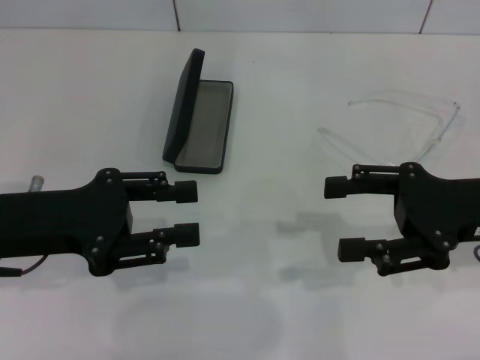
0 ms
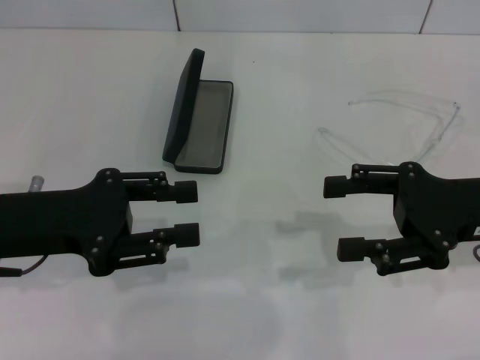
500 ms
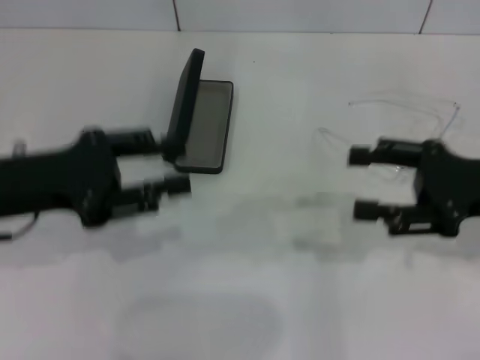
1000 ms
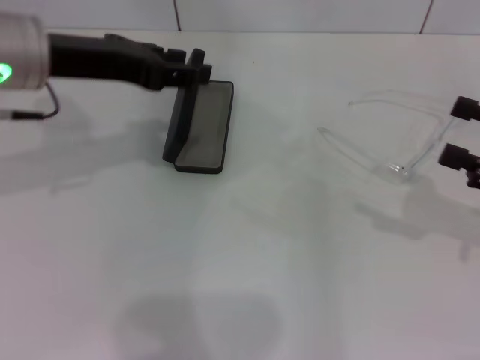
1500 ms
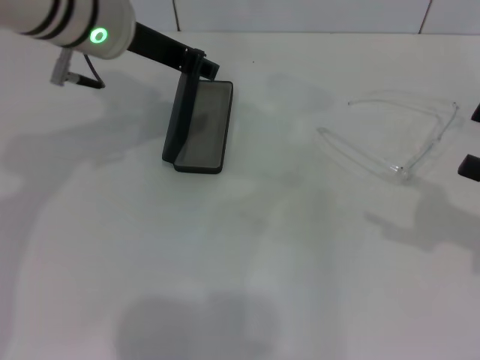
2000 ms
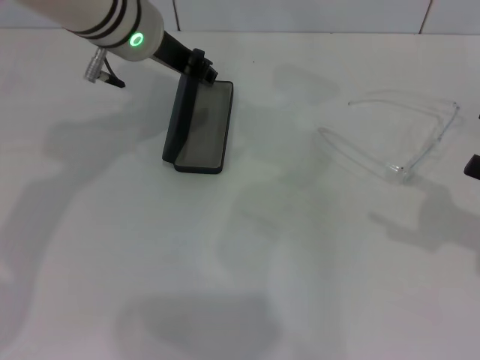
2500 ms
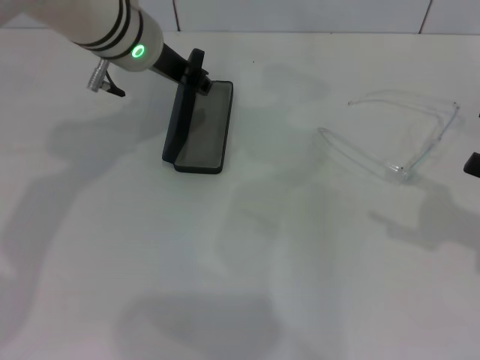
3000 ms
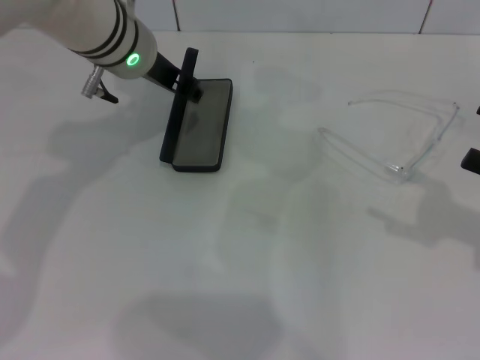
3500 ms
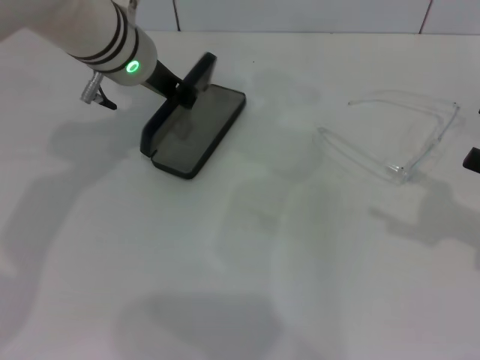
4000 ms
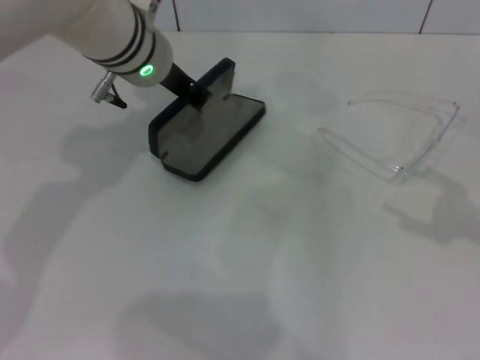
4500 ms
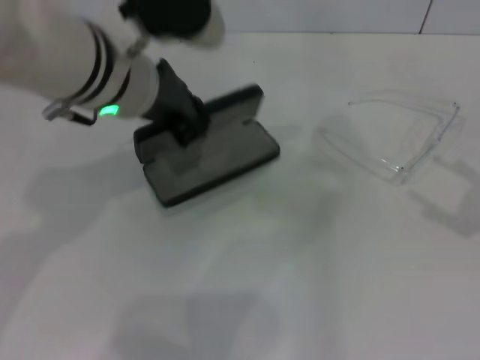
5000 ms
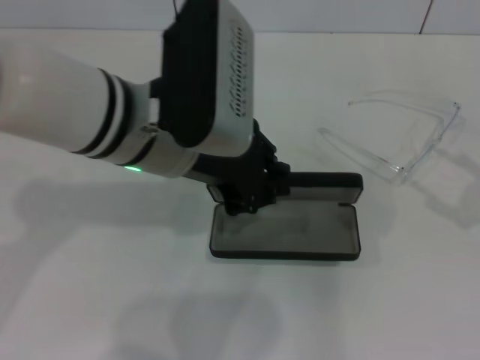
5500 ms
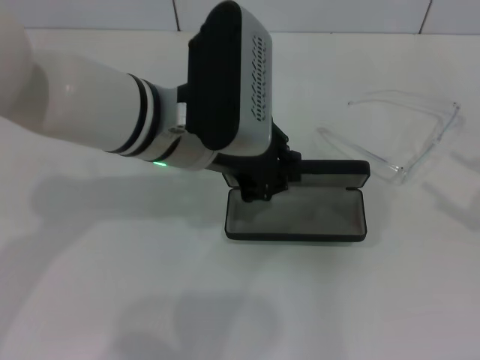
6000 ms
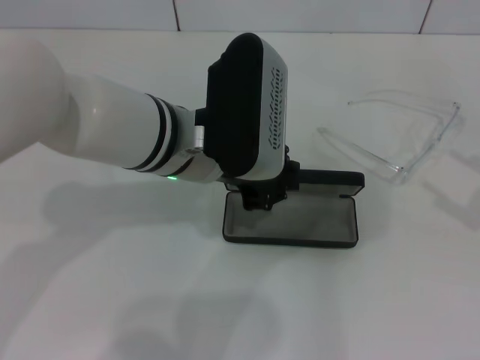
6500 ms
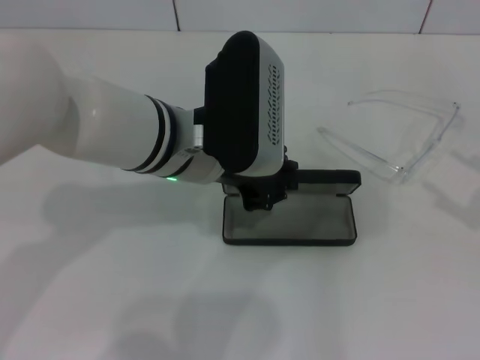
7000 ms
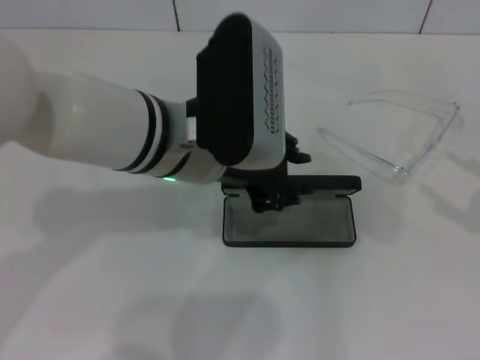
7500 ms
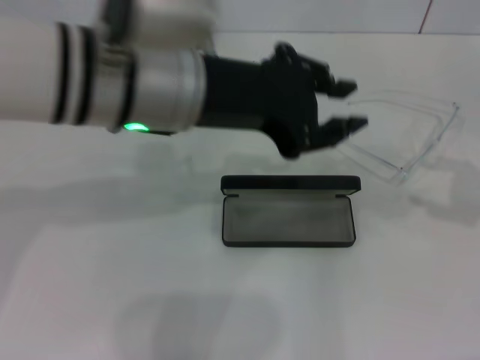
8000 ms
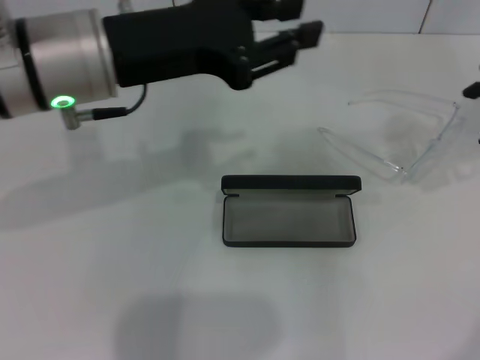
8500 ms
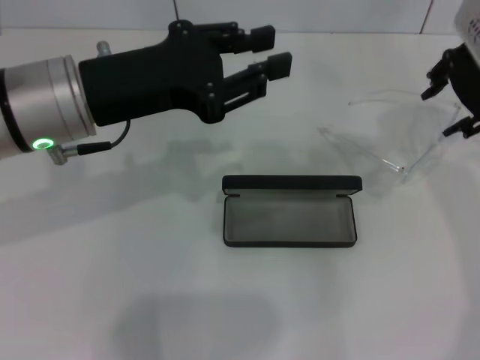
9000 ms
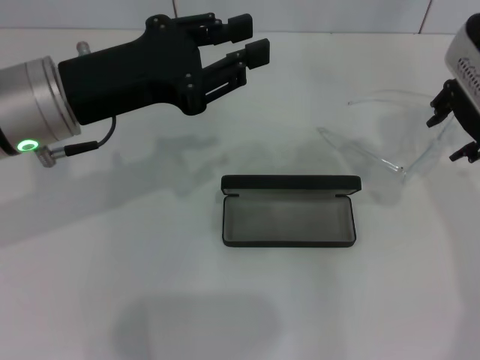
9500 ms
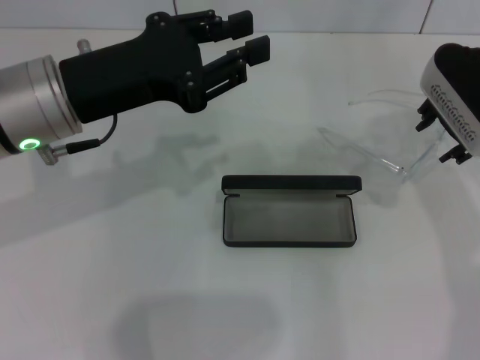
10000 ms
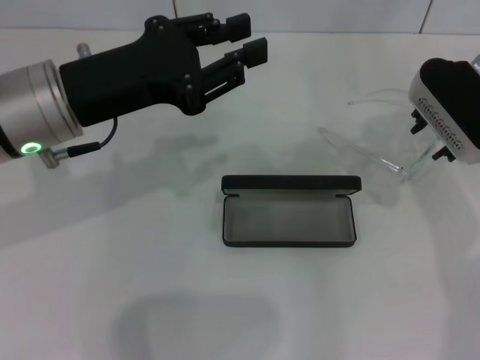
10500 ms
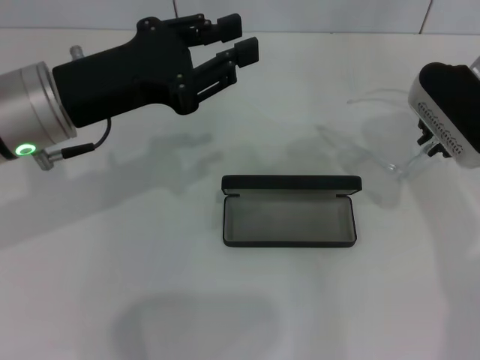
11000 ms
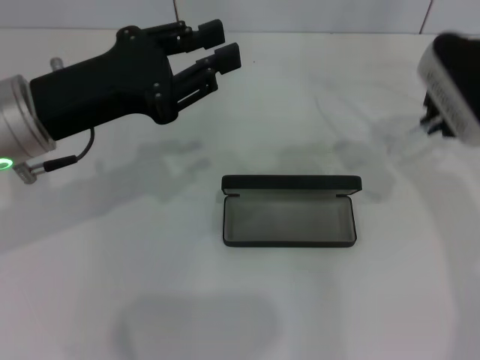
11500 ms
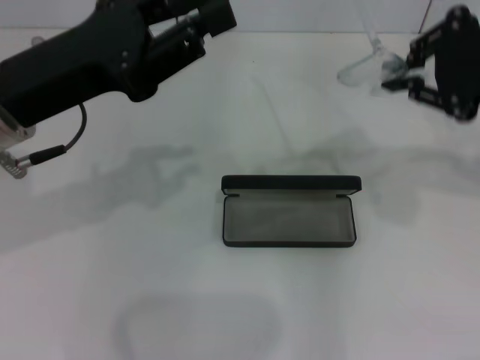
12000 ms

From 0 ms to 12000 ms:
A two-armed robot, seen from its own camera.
Step, from 0 ms to 4000 ms: Grab the glasses case with your left hand.
Step, from 4500 ms to 7000 ms: Place the glasses case in the center of the table with your left hand.
Step, from 7500 ms to 11000 ms: Grab the eyeglass frame with your right hand.
From 0 ms to 2000 ms: The left gripper goes approximately 20 cm forward, to the right and upward. Meanwhile the right gripper shifts about 10 cm to the right.
From 2000 ms to 4000 ms: The left gripper travels downward by some 5 cm.
From 4000 ms to 6000 ms: The left gripper travels backward by approximately 10 cm.
From 6000 ms to 8000 ms: The right gripper heads forward and upward, covering roughly 10 cm. Meanwhile the left gripper heads upward, covering roughly 5 cm.
From 8000 ms to 10000 ms: The left gripper heads to the left and downward, covering approximately 10 cm; the right gripper shifts some 20 cm to the left and forward.
From 10000 ms to 12000 ms: The right gripper moves backward and upward, approximately 10 cm, and closes its fingers.

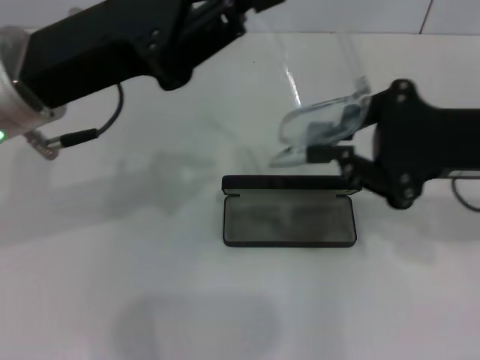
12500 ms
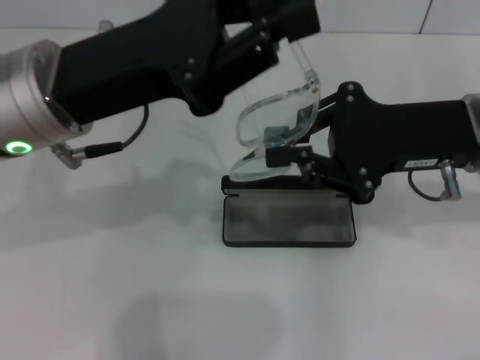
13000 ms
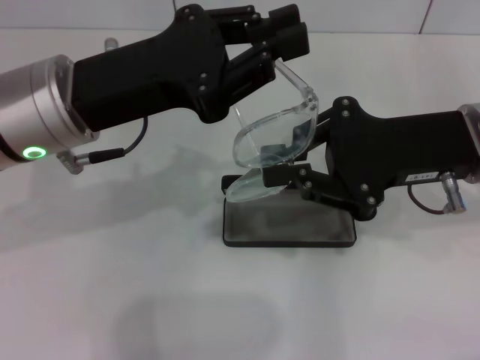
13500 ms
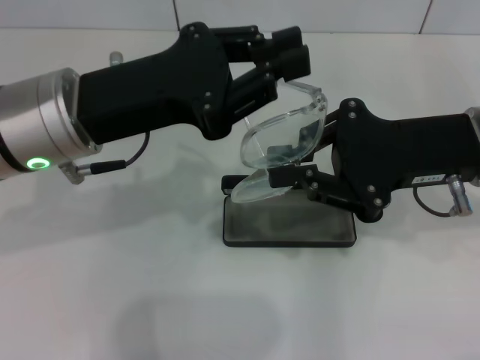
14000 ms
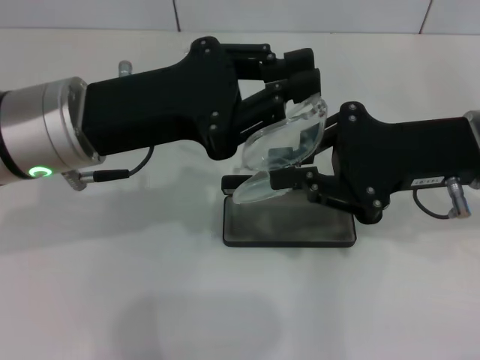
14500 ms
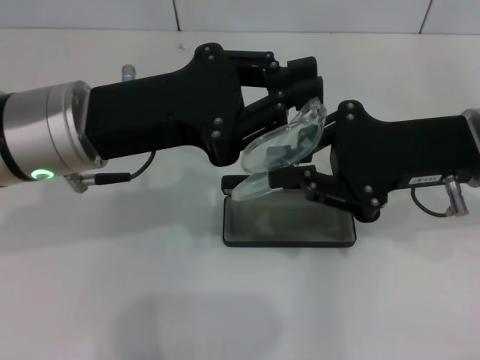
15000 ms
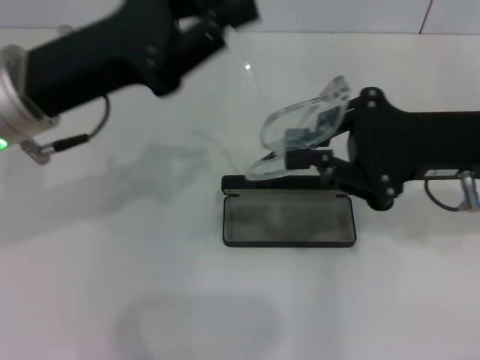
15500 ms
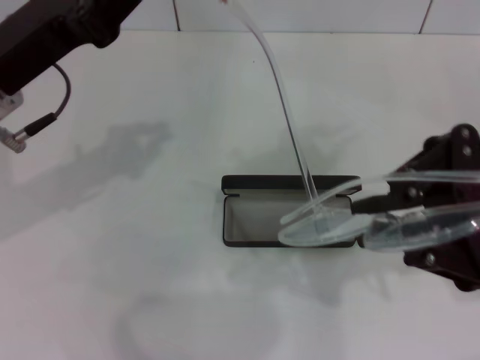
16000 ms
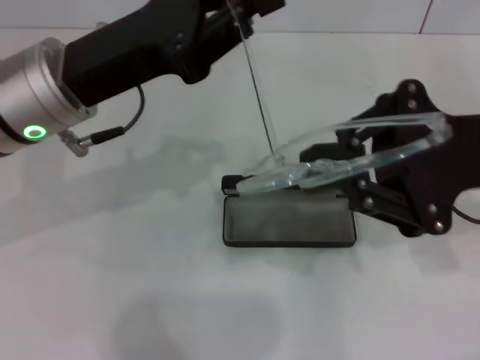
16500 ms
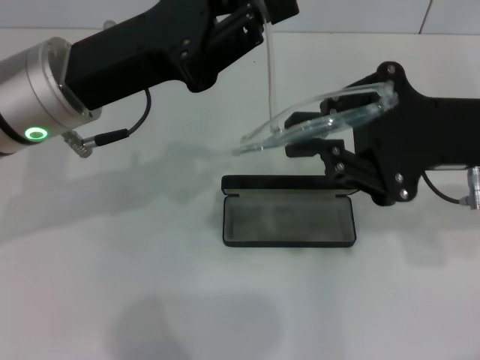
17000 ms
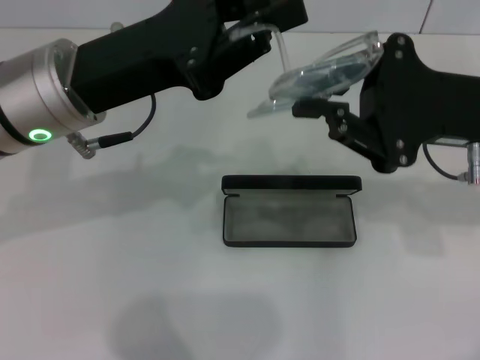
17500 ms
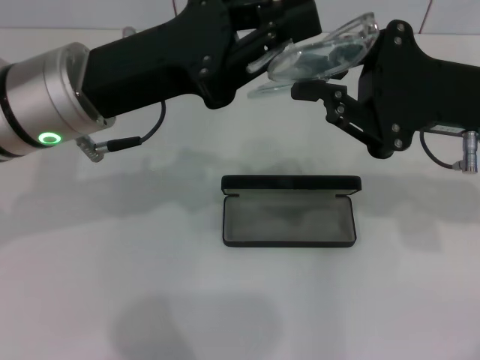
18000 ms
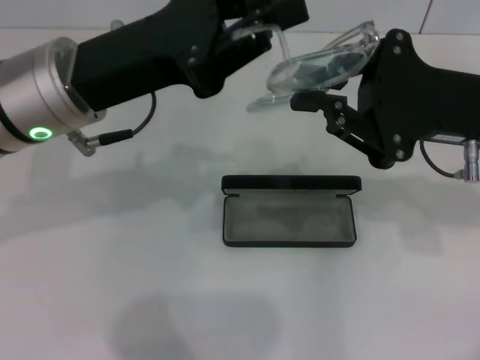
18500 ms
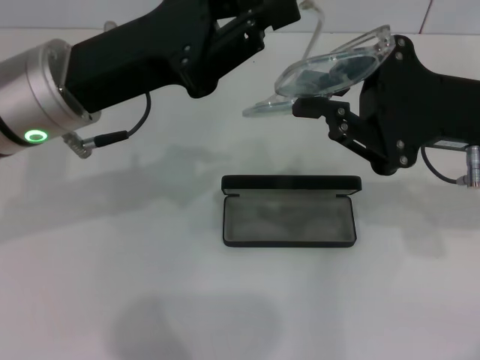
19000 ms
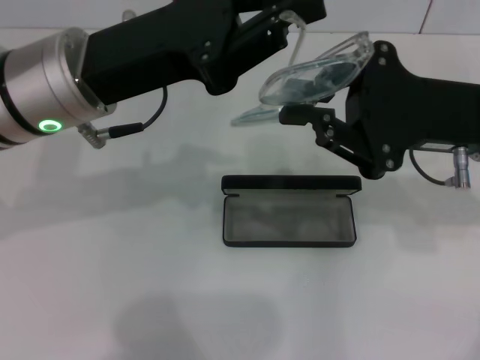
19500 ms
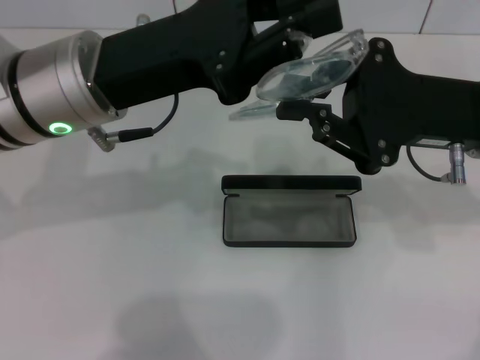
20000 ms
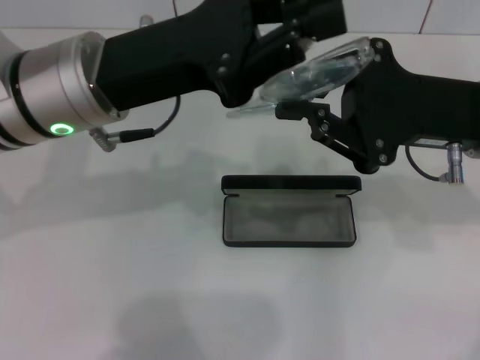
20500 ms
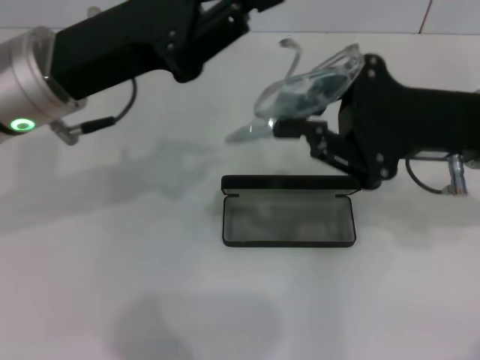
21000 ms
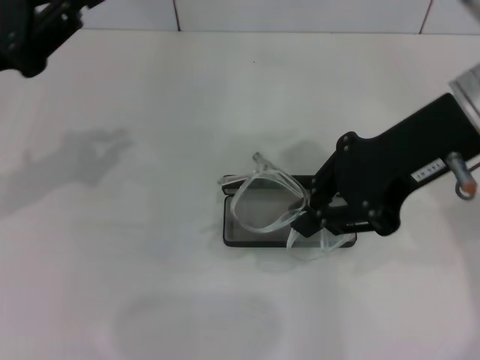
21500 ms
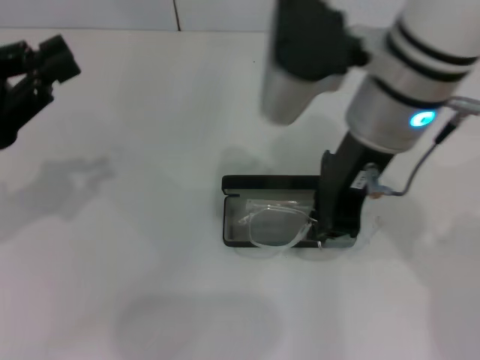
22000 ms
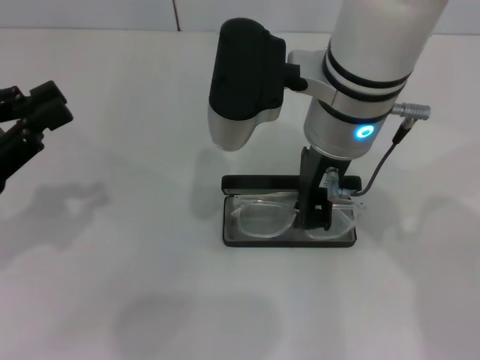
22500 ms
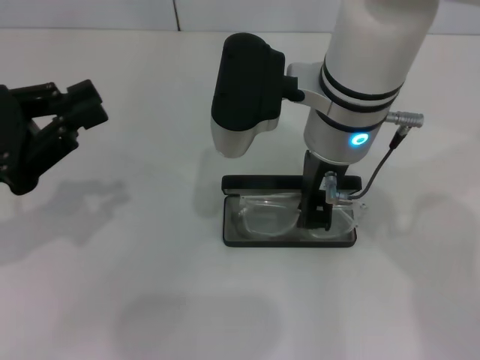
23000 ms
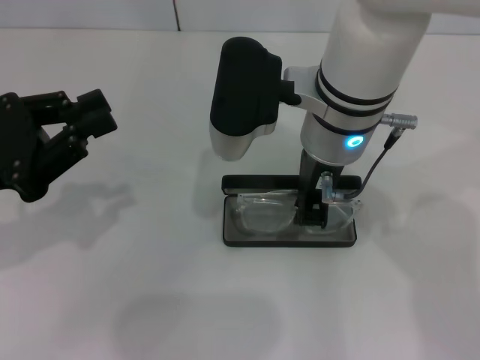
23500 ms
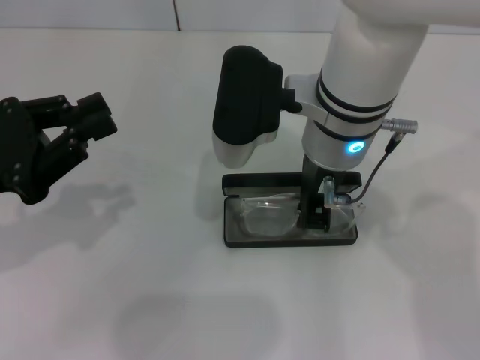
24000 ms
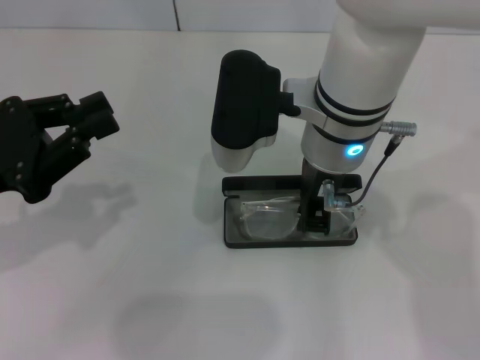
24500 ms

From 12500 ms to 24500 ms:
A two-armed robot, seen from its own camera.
Step, from 12500 ms to 20500 ms: Fold the frame with your left hand.
From 18500 ms to 20500 ms: There are only small adjustments of the grippers.
From 20500 ms to 22500 ms: The right gripper heads to the left, covering approximately 15 cm; the left gripper heads to the left and backward, covering approximately 20 cm.
From 22500 ms to 24500 ms: The grippers stay close to where they were, moving slightly.

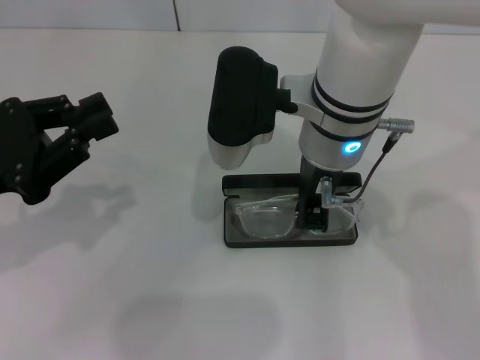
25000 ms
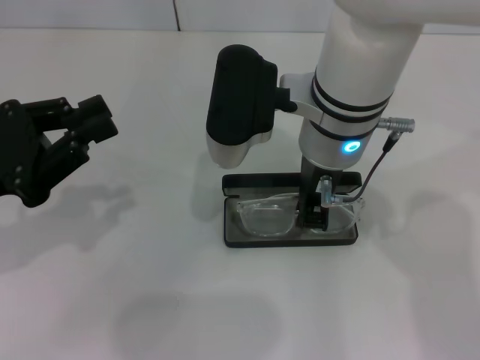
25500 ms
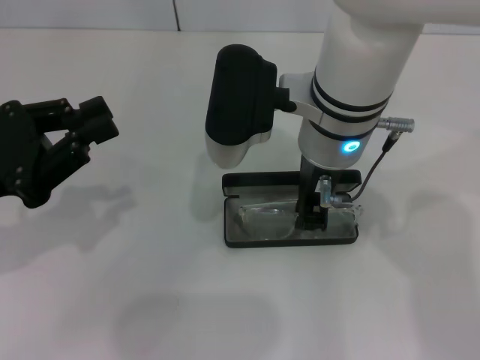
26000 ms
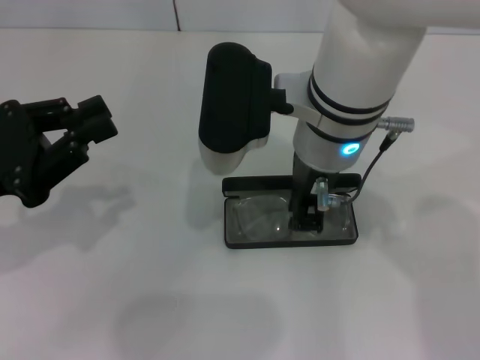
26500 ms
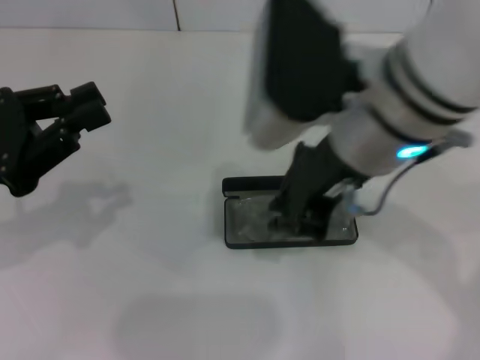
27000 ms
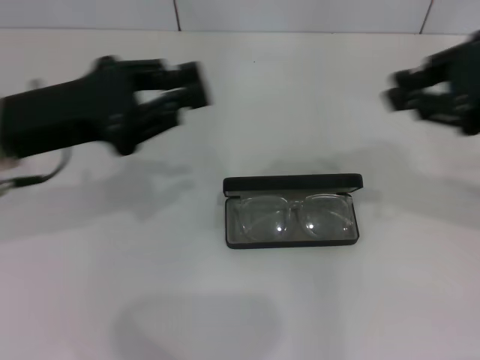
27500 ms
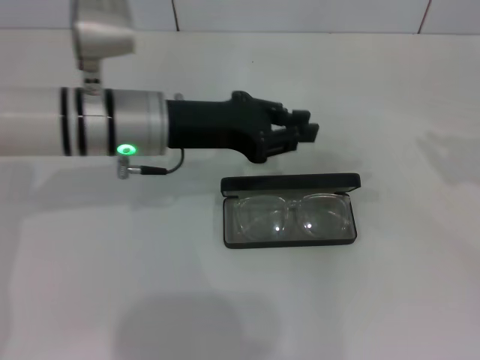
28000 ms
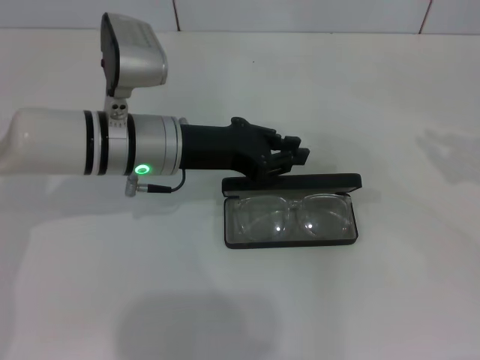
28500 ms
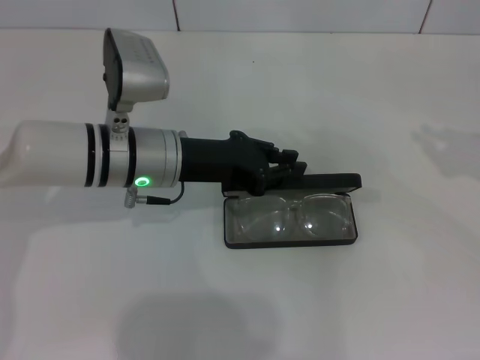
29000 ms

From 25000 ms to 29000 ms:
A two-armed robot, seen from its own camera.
From 25000 ms to 27000 ms: The right gripper moves upward, roughly 5 cm.
From 27000 ms to 29000 ms: The left gripper heads to the right and forward, covering some 20 cm. The right gripper moves to the right, about 30 cm.
